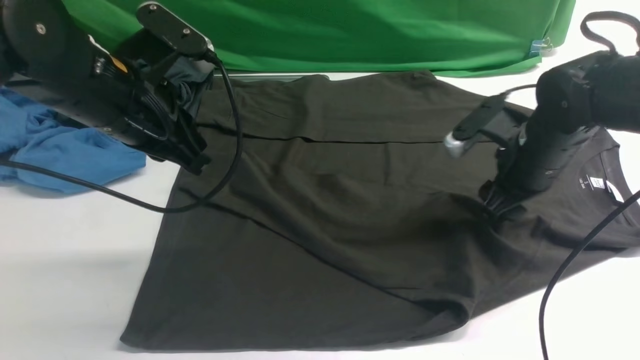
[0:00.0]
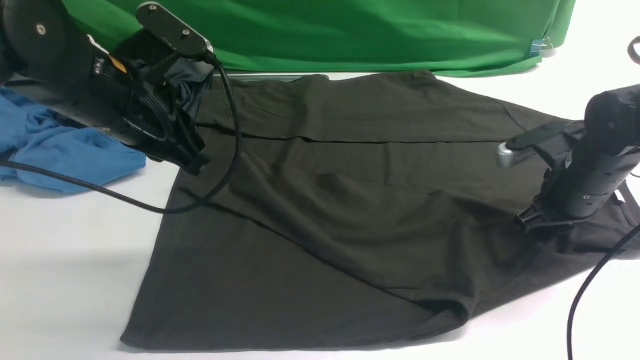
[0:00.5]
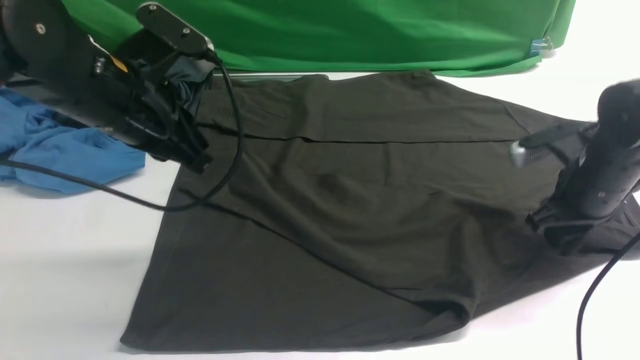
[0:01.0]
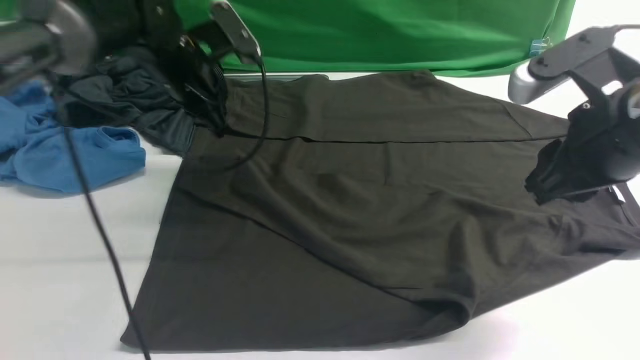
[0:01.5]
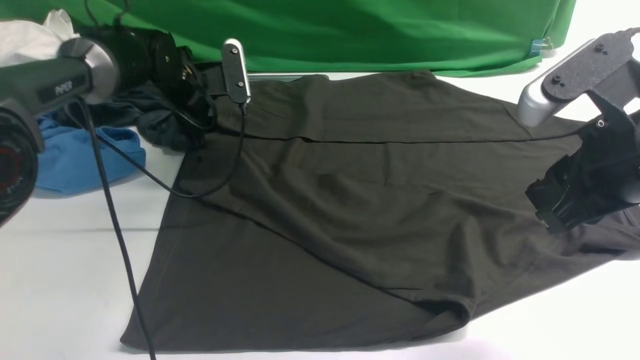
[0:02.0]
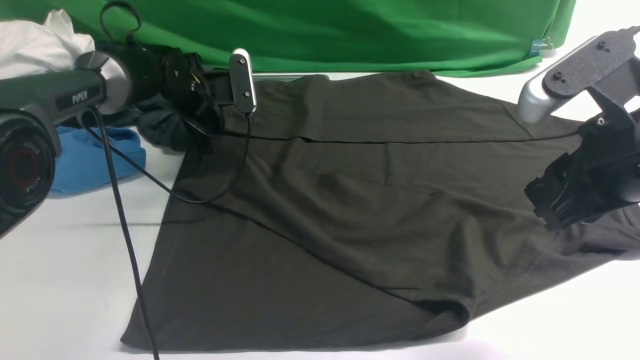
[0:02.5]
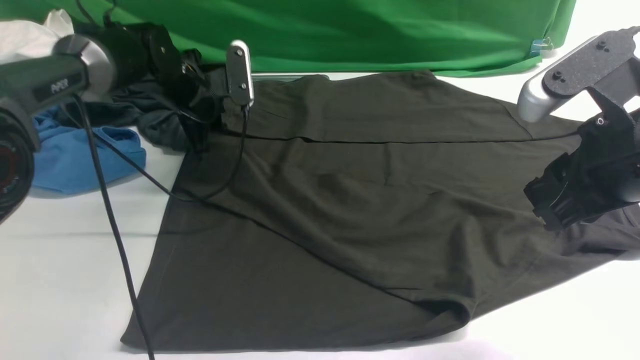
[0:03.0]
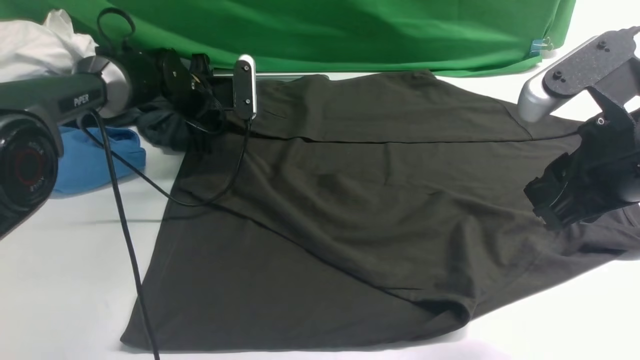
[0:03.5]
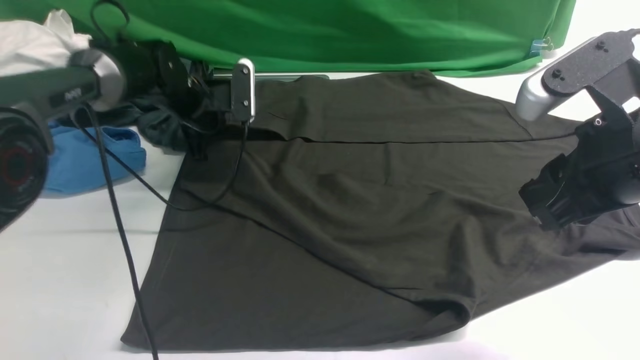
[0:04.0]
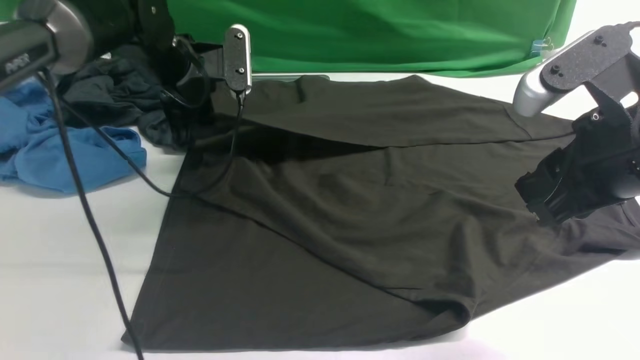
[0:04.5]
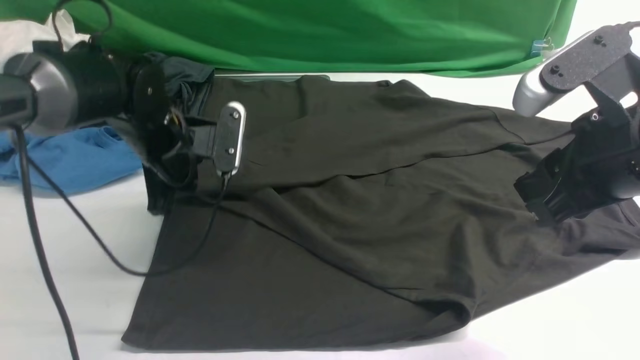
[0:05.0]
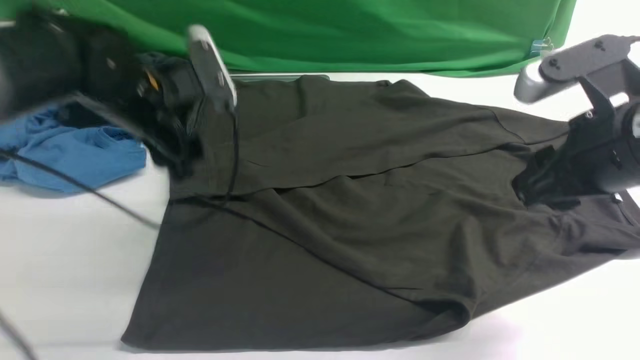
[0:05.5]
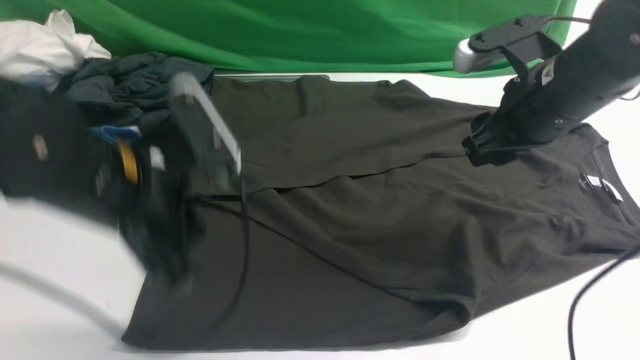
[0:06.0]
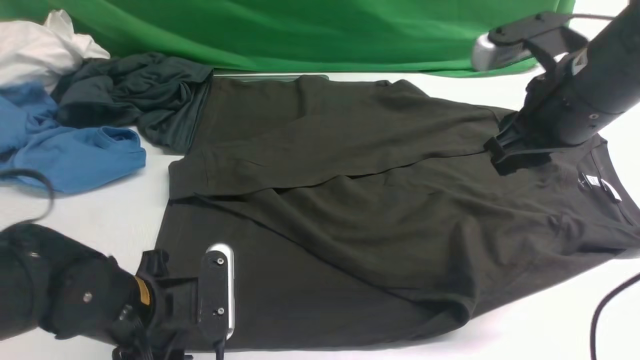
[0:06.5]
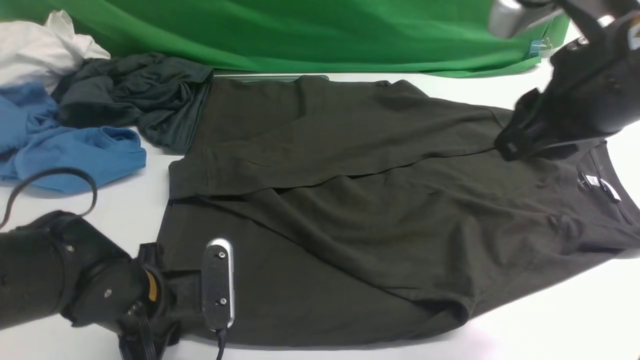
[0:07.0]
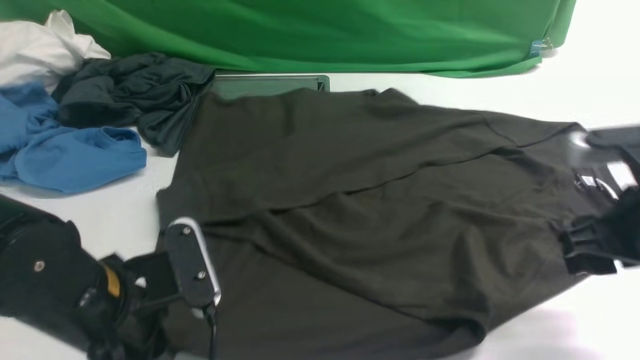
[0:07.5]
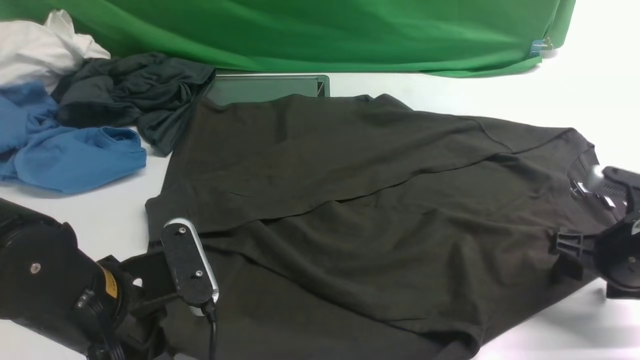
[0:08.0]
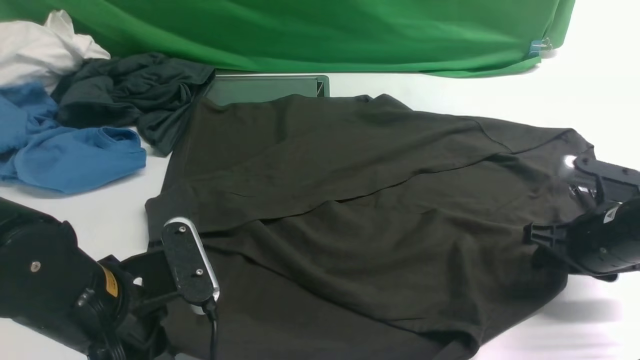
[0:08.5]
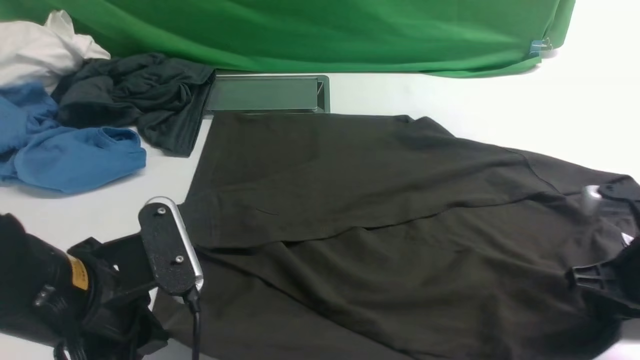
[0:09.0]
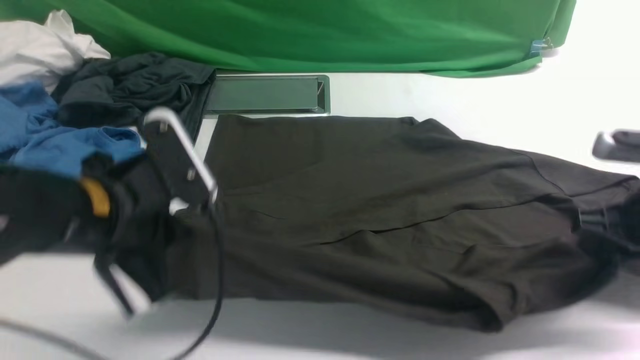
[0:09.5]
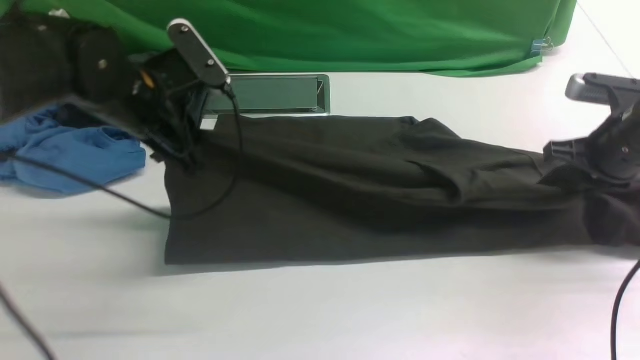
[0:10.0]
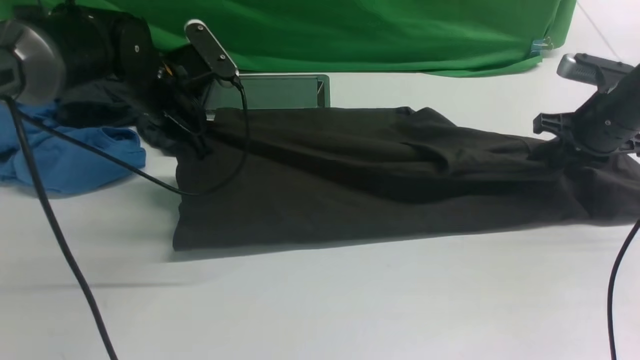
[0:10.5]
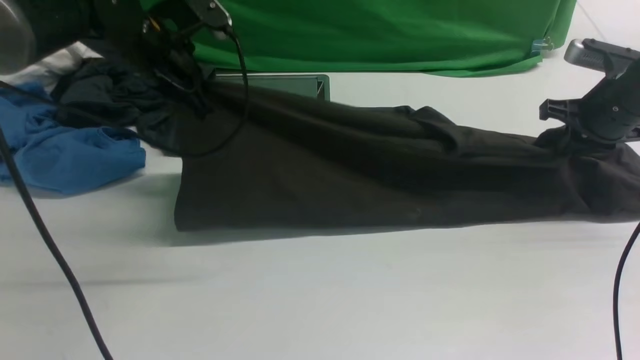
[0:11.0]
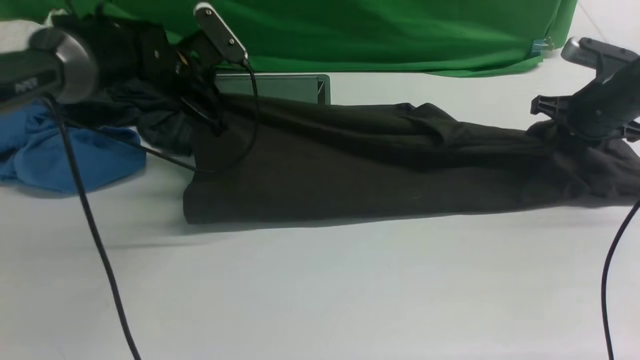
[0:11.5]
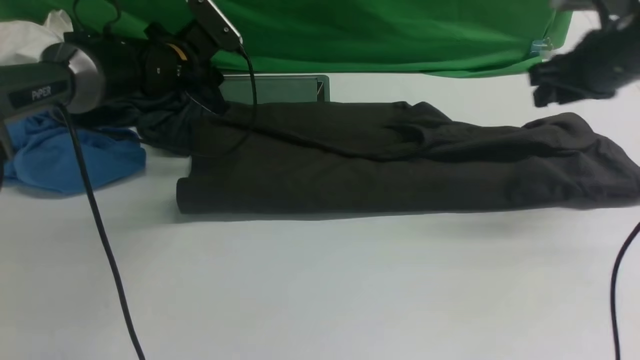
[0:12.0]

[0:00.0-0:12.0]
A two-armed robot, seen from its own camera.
Step, 0:00.0 to 0:04.0: use the left arm to clamp the cuff farthest from it.
Step, 0:04.5 to 0:05.5: use the left arm to drag and drop the cuff onto the cuff closest to the left arm.
Step, 0:06.0 to 0:08.5: use both arms simultaneously to clamp the lower edge of the clothing fabric.
0:00.0 to 0:02.0: The right gripper heads backward and upward, covering about 20 cm, while the left gripper shifts roughly 20 cm forward and downward, and opens.
0:02.0 to 0:04.0: The left gripper closes its fingers.
0:04.0 to 0:06.0: The right gripper heads forward, covering about 10 cm. Meanwhile the left gripper heads backward, covering some 25 cm, and opens and closes again.
0:06.0 to 0:08.0: The right gripper is displaced downward, to the right and backward by approximately 15 cm. The left gripper goes about 10 cm backward and downward, and opens and closes again.
0:08.0 to 0:10.0: The right gripper goes about 10 cm forward, and closes up. Meanwhile the left gripper heads forward, covering some 20 cm.
0:10.0 to 0:12.0: The left gripper is displaced forward by about 10 cm, and opens up. Meanwhile the right gripper is displaced upward by approximately 5 cm.

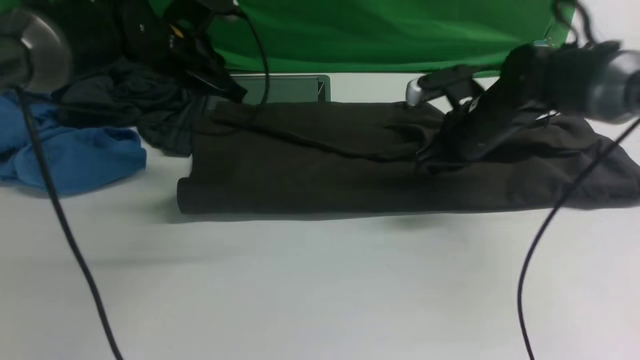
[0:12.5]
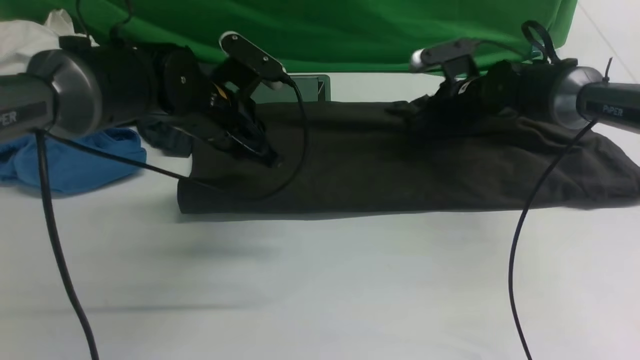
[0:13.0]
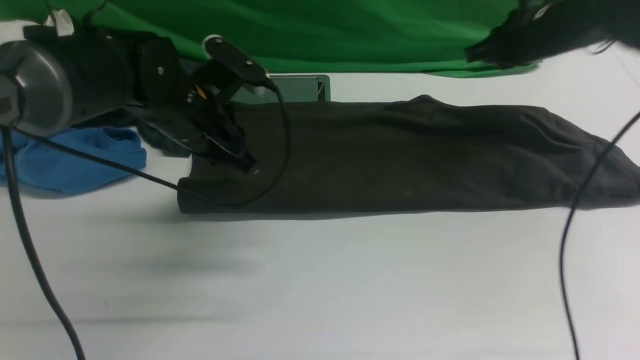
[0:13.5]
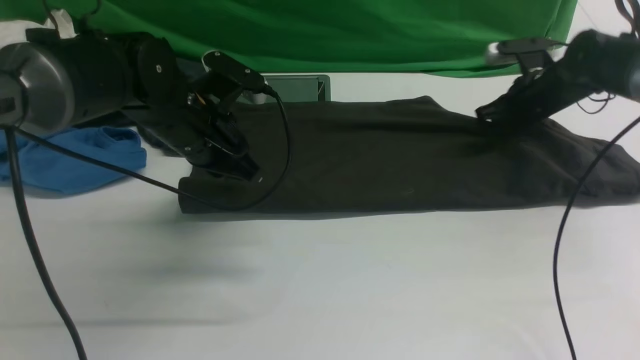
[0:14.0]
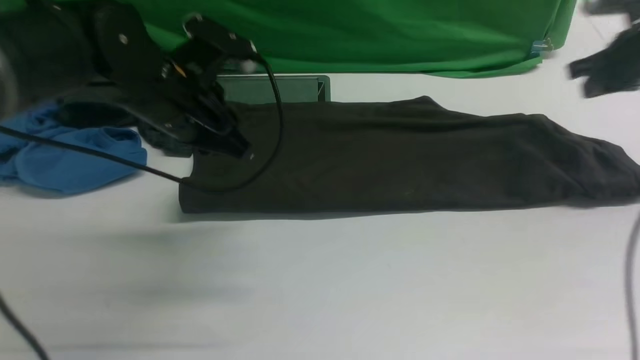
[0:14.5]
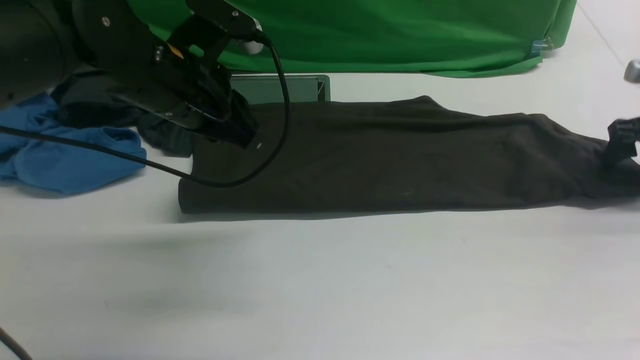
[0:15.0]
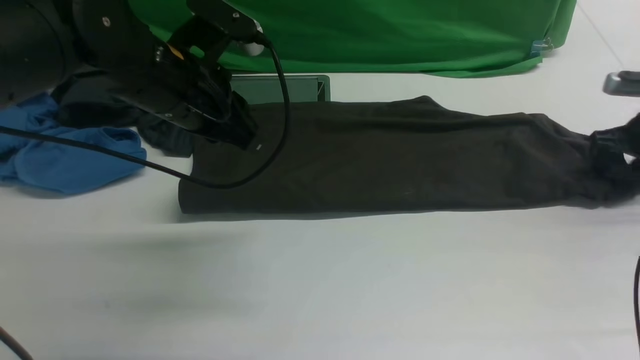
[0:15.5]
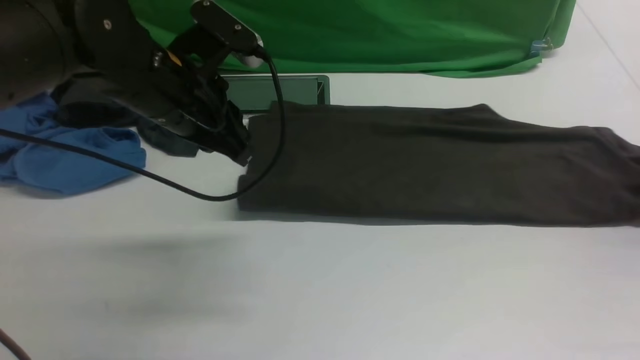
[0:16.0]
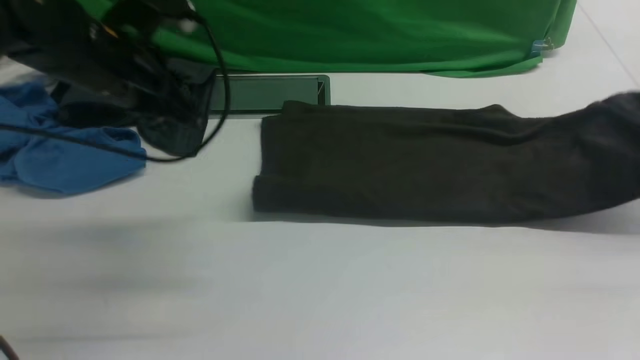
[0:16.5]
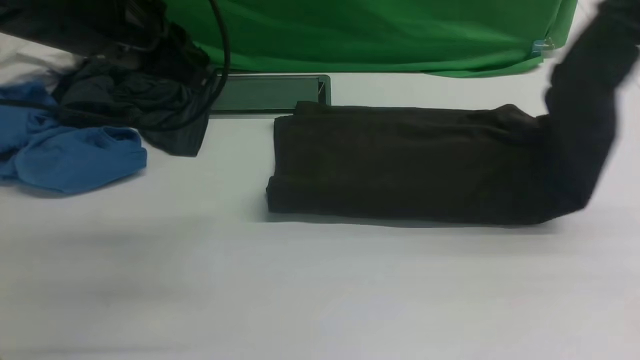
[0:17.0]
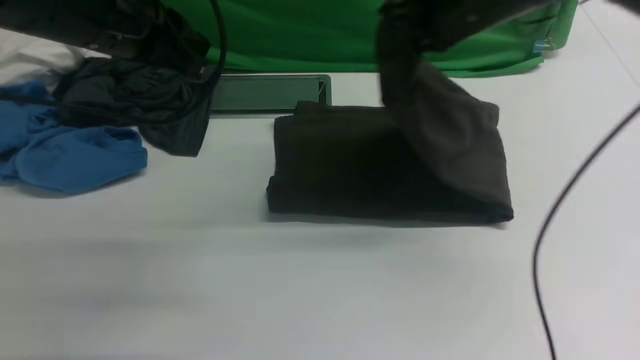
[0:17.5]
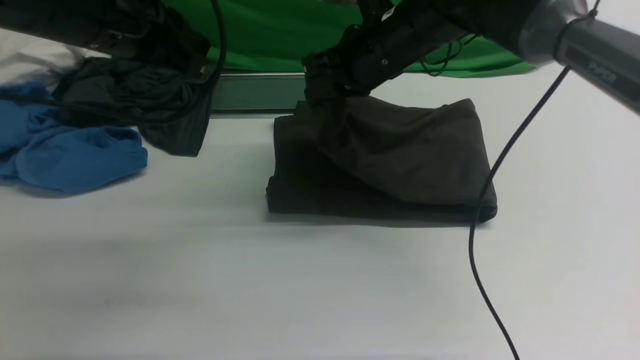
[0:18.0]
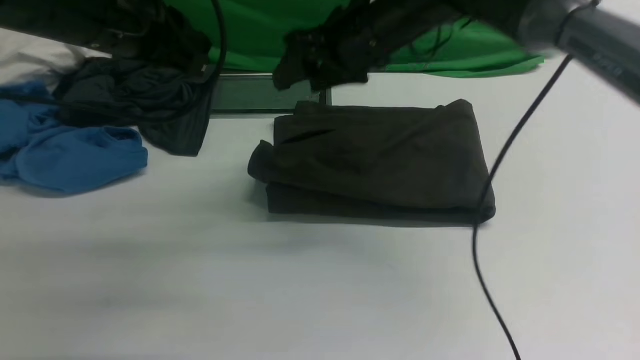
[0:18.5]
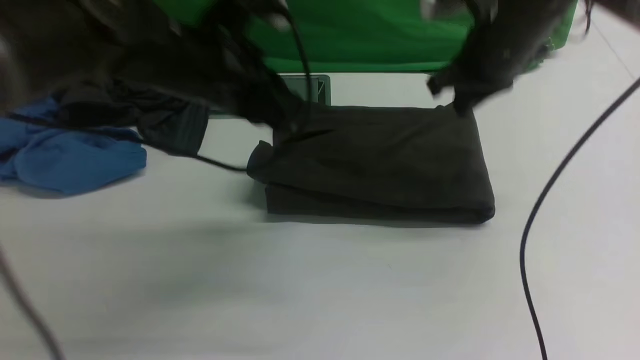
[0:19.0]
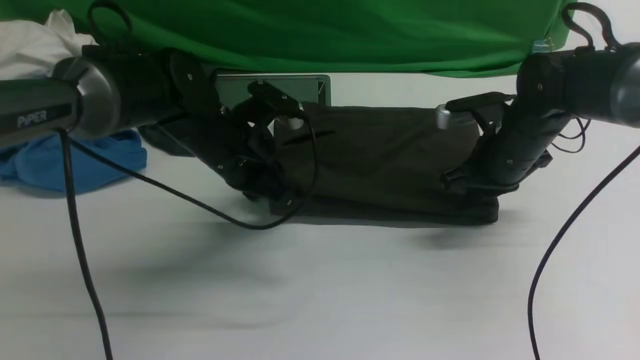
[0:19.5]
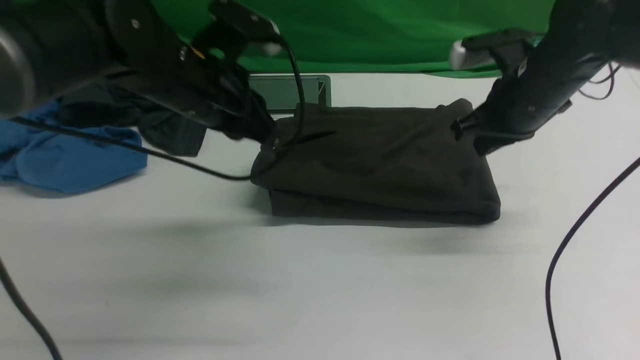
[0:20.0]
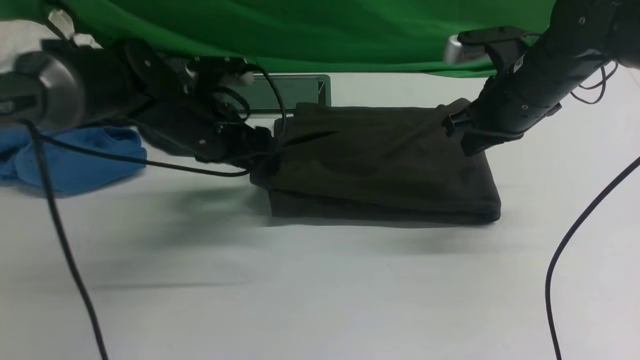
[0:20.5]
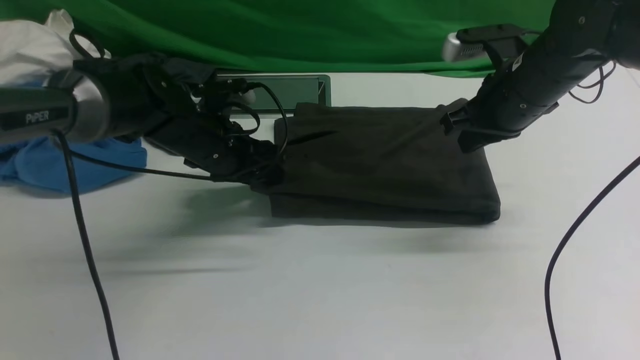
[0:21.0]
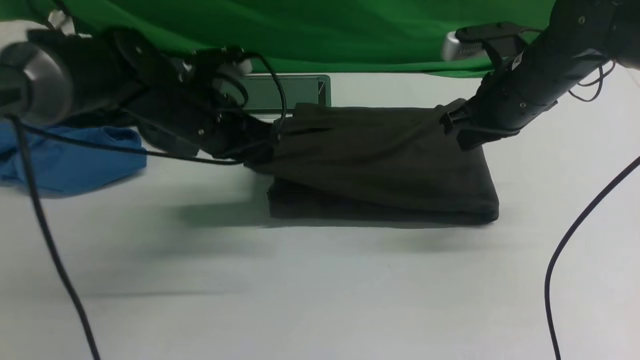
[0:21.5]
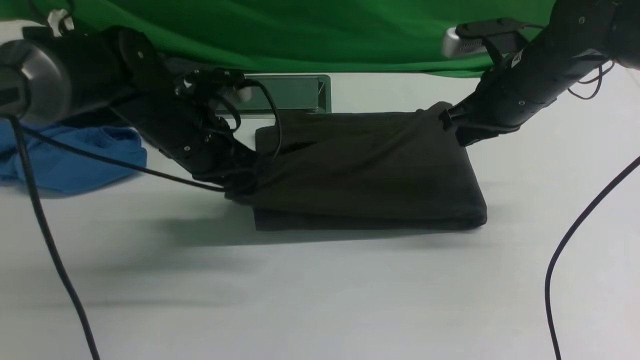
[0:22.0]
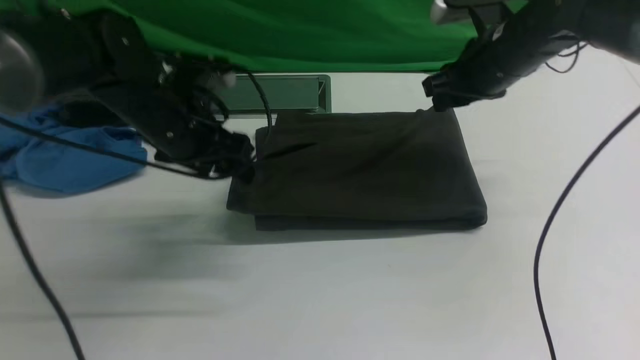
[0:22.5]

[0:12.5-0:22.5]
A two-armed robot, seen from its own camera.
Step, 0:14.5 to 0:15.5: use the right arm to clamp the right edge of the fabric.
Step, 0:16.0 to 0:18.5: use the right arm to drag the right edge of the fabric to the left and folds it over the left edge.
0:12.5 to 0:14.5: The left gripper moves backward, roughly 10 cm. Meanwhile the right gripper heads to the right, covering roughly 20 cm.
0:14.5 to 0:16.5: The left gripper moves roughly 5 cm. The right gripper is displaced backward, upward and to the right by approximately 10 cm, and opens, then closes once more.
0:16.5 to 0:18.5: The right gripper travels to the left by some 35 cm, and opens up.
0:18.5 to 0:20.5: The right gripper shifts about 15 cm to the right and downward, and closes up; the left gripper moves up and down over some 15 cm, changing direction 2 times, and opens its fingers.
0:20.5 to 0:22.5: The left gripper changes place by roughly 5 cm, and closes, then reopens; the right gripper goes roughly 5 cm forward, and opens its fingers.
